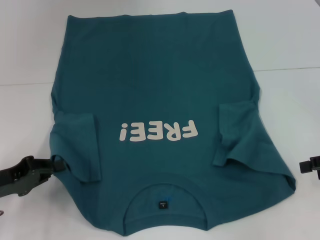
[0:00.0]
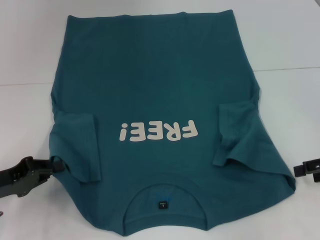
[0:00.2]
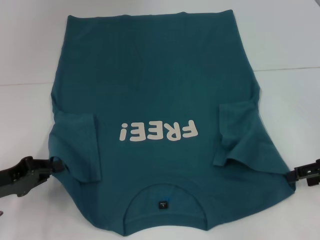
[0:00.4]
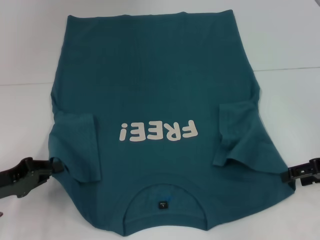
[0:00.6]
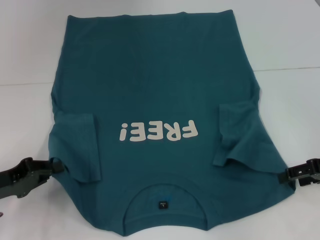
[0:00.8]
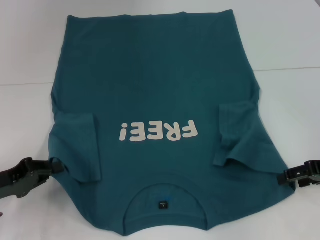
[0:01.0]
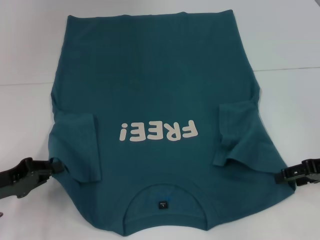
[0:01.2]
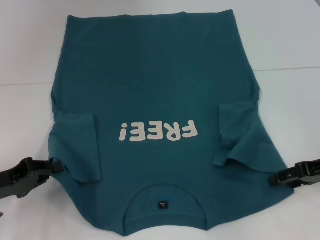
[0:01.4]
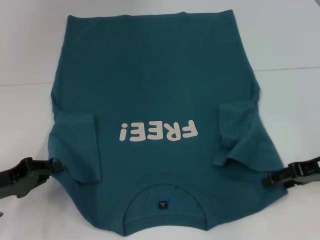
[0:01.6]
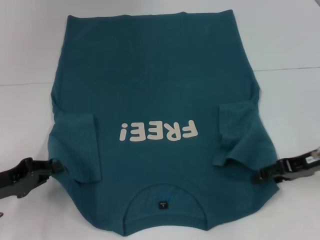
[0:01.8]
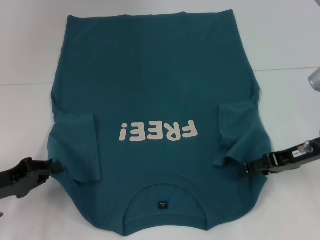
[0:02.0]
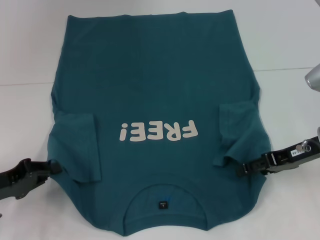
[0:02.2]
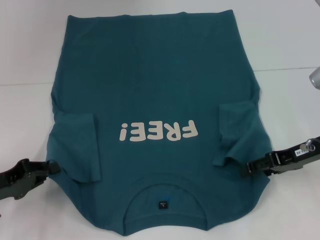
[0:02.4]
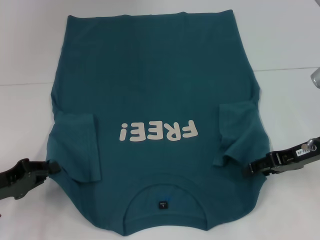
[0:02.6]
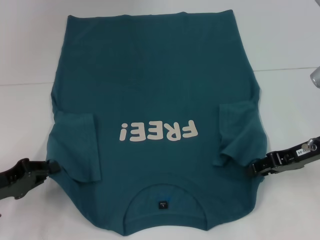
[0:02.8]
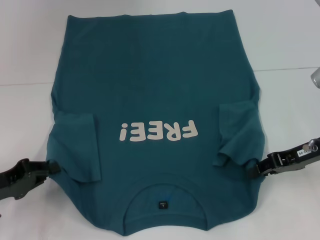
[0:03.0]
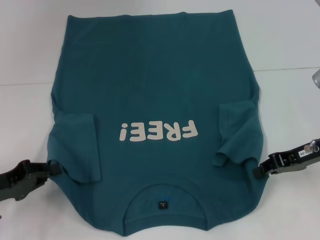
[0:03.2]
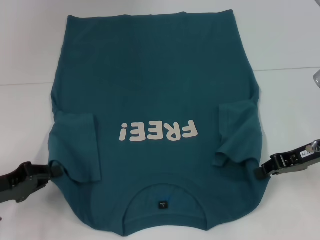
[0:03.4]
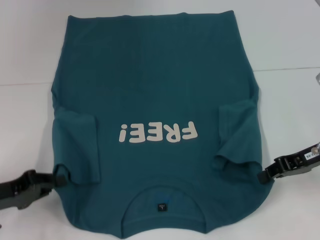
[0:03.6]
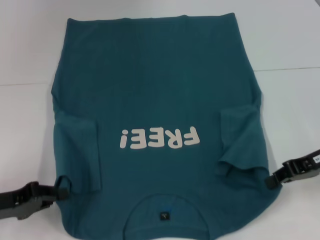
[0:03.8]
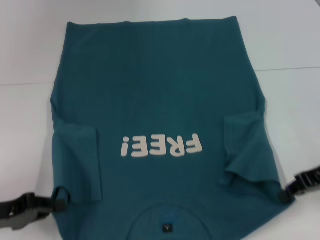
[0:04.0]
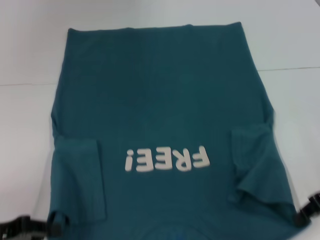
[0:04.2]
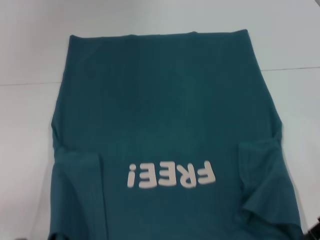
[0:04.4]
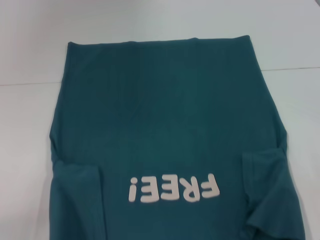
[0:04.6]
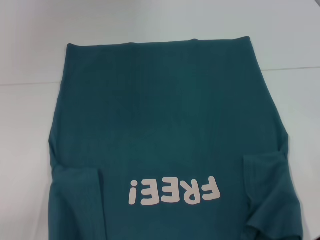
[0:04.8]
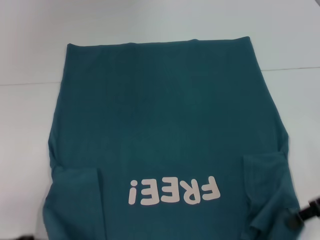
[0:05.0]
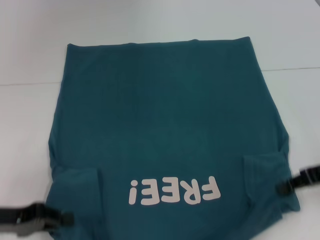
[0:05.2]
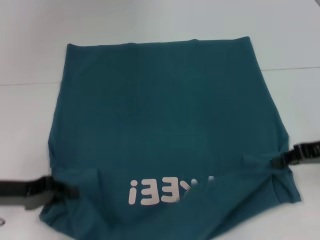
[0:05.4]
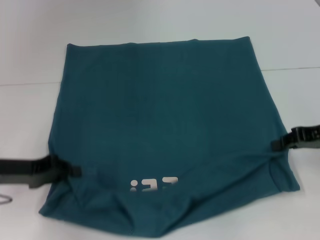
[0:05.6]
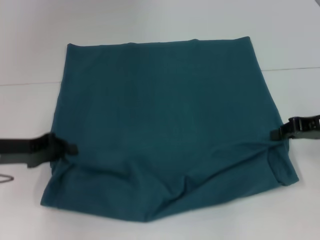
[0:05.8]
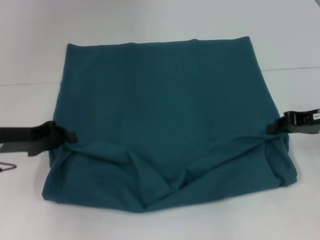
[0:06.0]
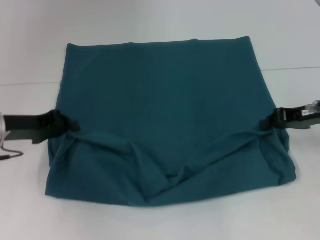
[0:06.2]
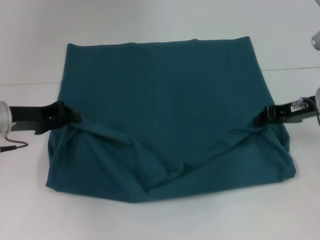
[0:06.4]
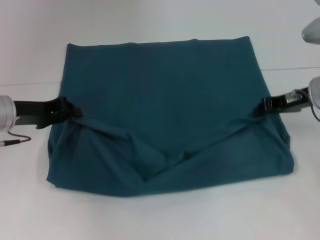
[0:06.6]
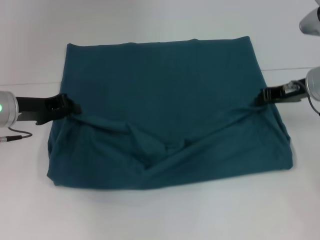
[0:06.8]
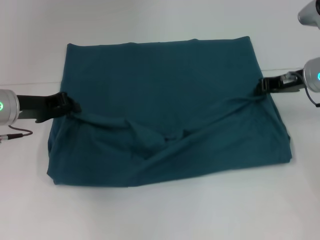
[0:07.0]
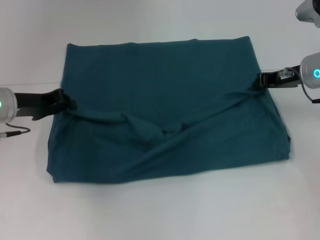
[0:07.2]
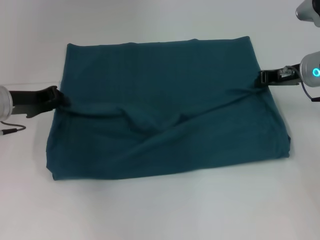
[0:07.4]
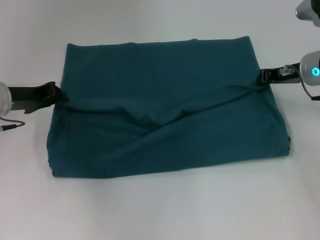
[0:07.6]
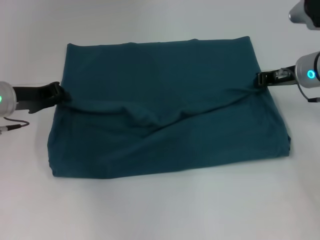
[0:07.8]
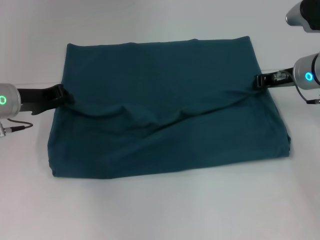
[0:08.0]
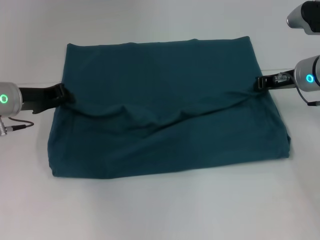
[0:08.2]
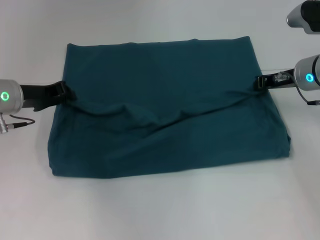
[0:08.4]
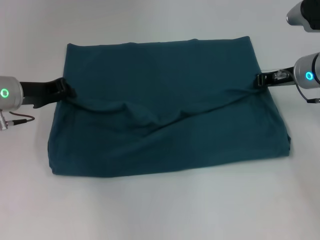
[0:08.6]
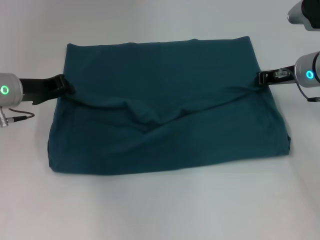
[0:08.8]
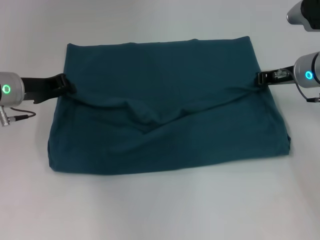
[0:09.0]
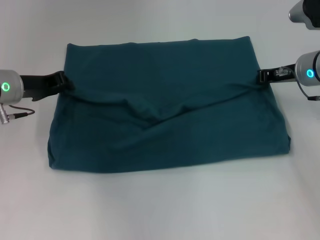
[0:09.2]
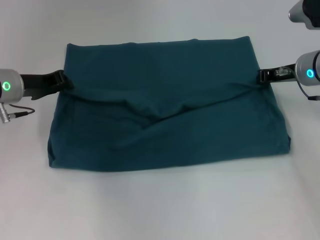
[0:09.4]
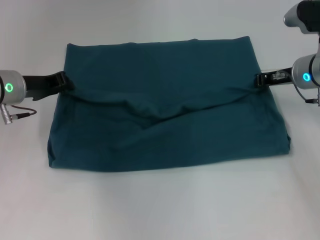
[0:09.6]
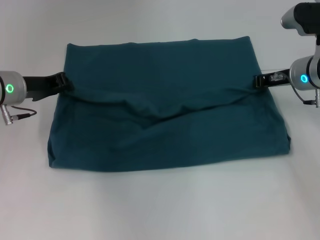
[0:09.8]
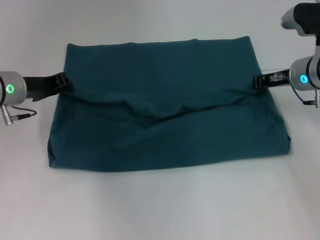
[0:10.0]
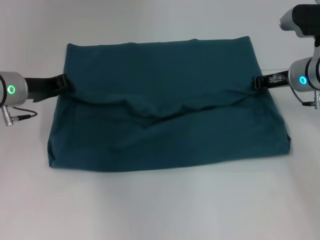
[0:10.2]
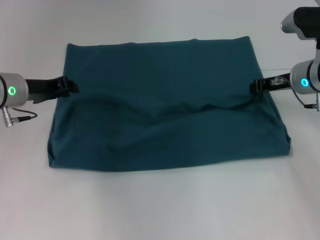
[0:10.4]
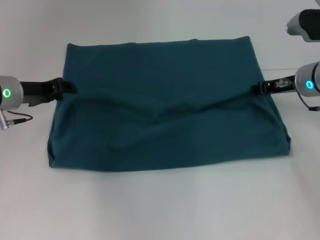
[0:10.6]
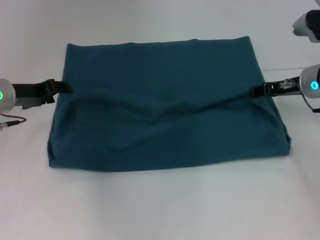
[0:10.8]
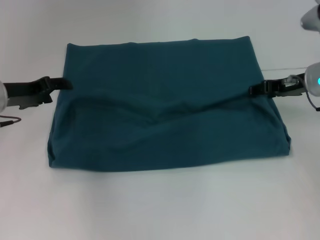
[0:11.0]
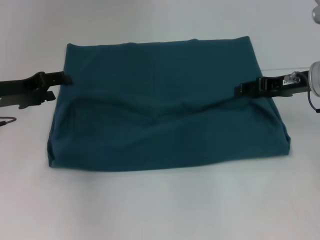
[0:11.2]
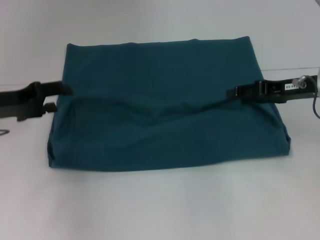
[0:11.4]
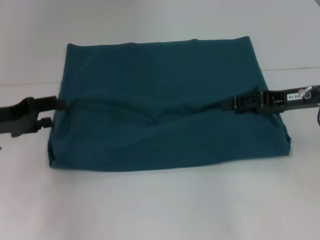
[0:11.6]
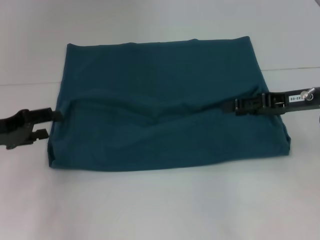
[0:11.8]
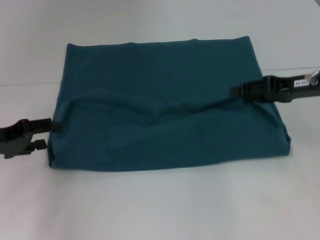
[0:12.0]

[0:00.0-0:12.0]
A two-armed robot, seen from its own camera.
Step, 0:00.0 to 0:03.8: Grab the bottom right corner with your right hand.
Step, 0:04.0 to 0:10.8: Fold the clothes to the left.
Step, 0:04.0 to 0:10.8: Fold the clothes to the right.
0:00.0 to 0:01.6: The right gripper travels to the left by about 5 cm.
0:01.6 to 0:03.0: The right gripper closes up.
0:03.0 to 0:04.4: The grippers both shift backward by roughly 5 cm. The right gripper closes up.
0:04.4 to 0:06.0: The left gripper shifts roughly 15 cm forward. Meanwhile the right gripper heads forward, covering about 10 cm.
0:06.0 to 0:07.6: The two grippers go about 5 cm forward.
0:07.6 to 0:09.0: The grippers make only small movements.
0:09.0 to 0:10.4: Neither gripper changes place.
0:10.4 to 0:12.0: The right gripper heads backward, covering some 5 cm, and opens. Meanwhile the left gripper travels backward and to the left by some 10 cm, and opens up.

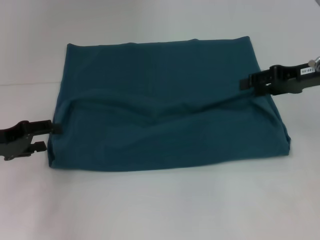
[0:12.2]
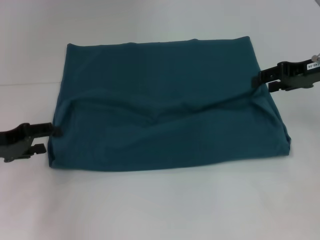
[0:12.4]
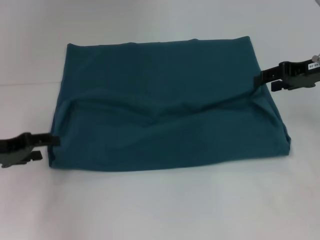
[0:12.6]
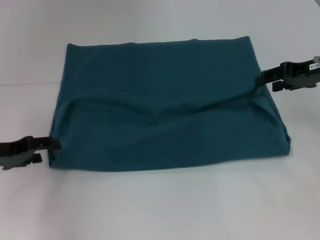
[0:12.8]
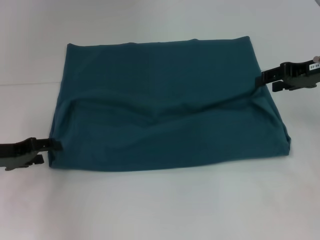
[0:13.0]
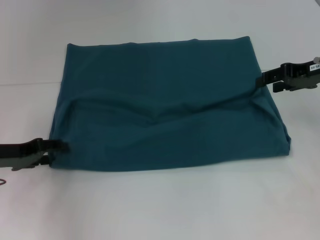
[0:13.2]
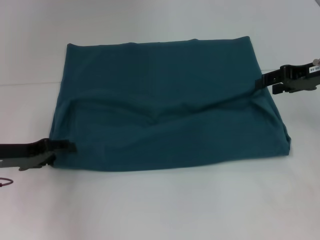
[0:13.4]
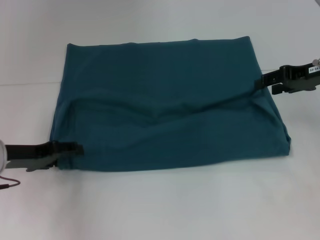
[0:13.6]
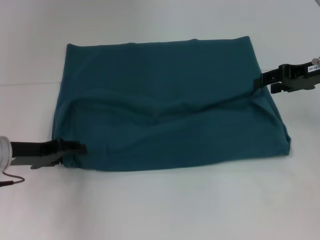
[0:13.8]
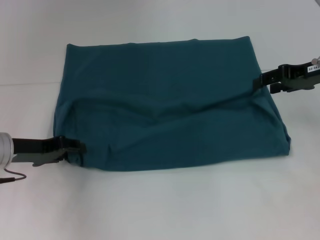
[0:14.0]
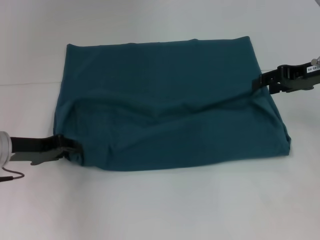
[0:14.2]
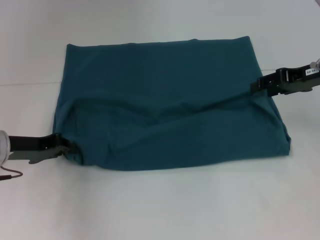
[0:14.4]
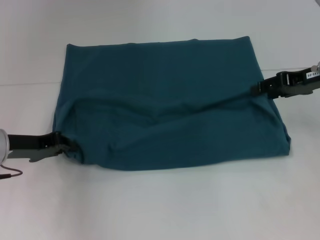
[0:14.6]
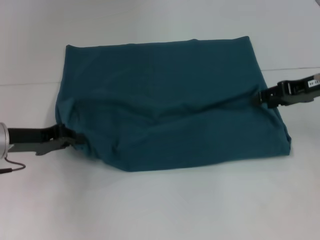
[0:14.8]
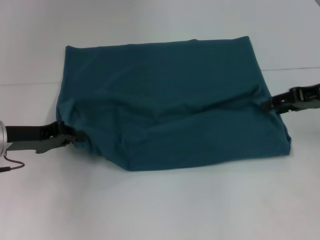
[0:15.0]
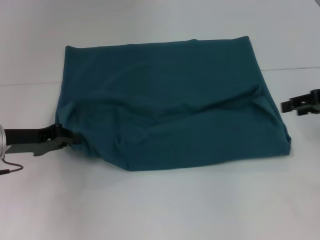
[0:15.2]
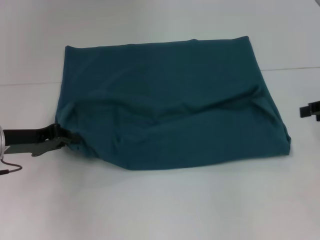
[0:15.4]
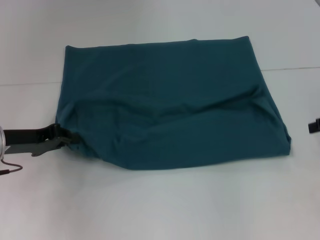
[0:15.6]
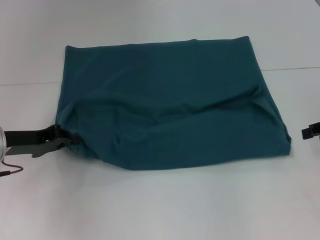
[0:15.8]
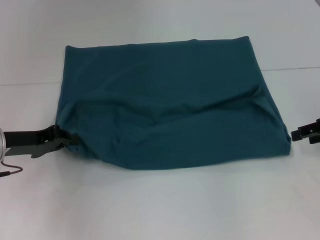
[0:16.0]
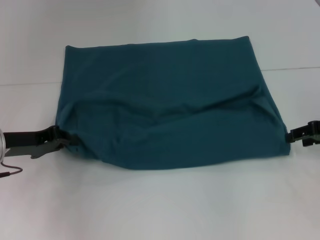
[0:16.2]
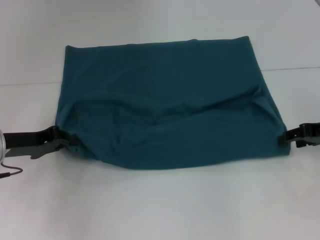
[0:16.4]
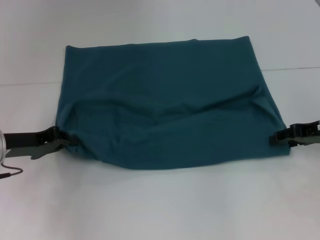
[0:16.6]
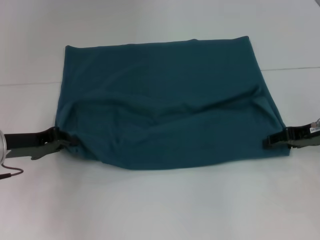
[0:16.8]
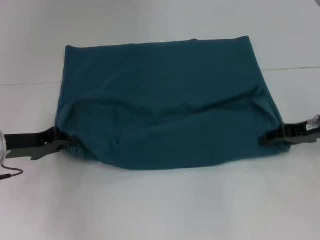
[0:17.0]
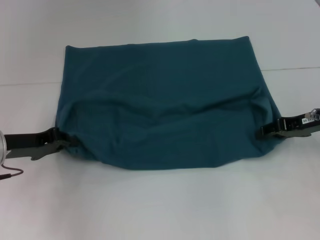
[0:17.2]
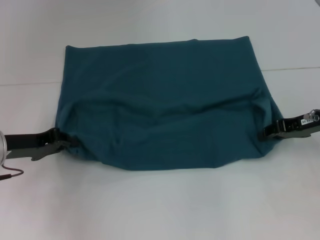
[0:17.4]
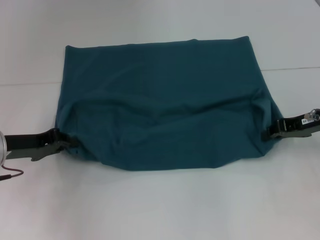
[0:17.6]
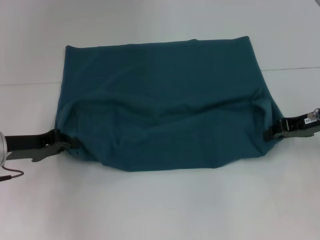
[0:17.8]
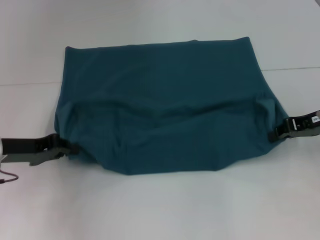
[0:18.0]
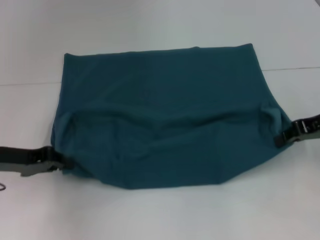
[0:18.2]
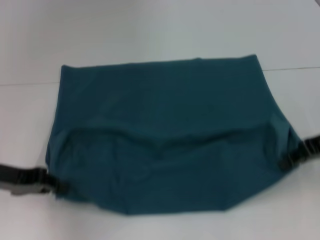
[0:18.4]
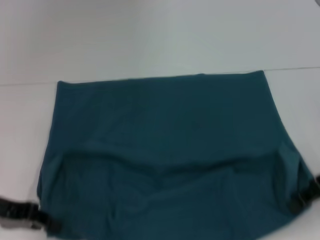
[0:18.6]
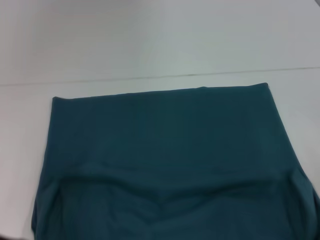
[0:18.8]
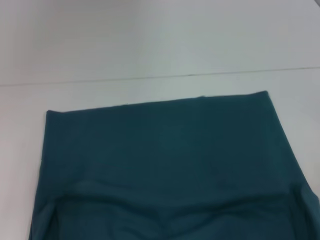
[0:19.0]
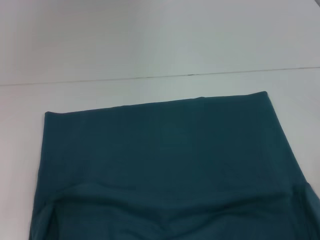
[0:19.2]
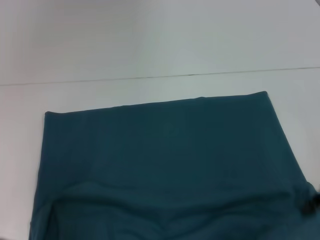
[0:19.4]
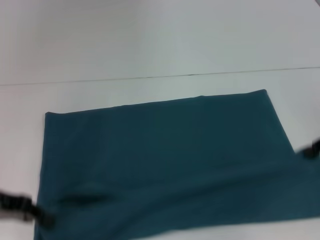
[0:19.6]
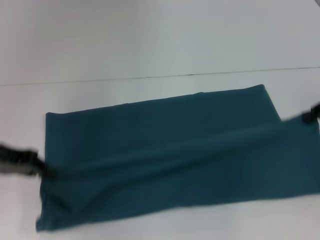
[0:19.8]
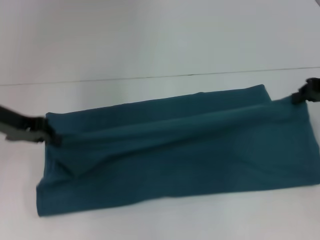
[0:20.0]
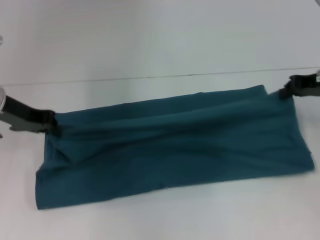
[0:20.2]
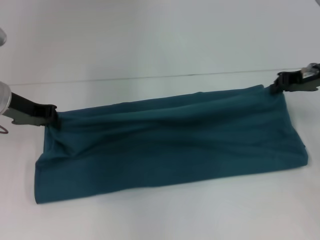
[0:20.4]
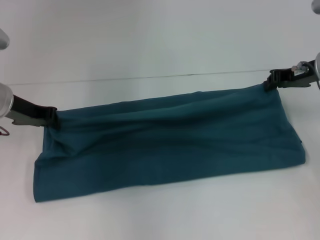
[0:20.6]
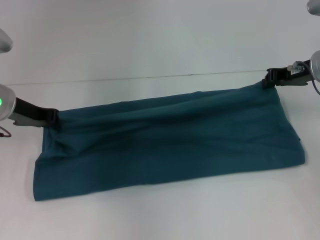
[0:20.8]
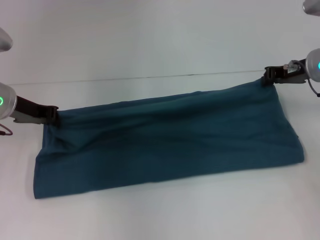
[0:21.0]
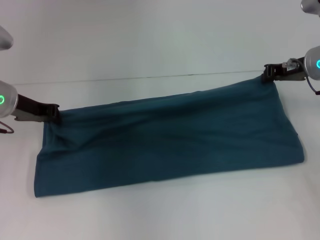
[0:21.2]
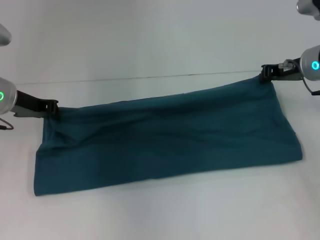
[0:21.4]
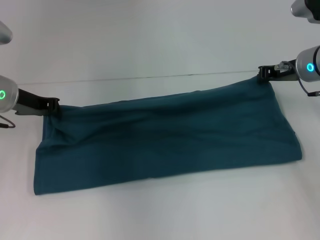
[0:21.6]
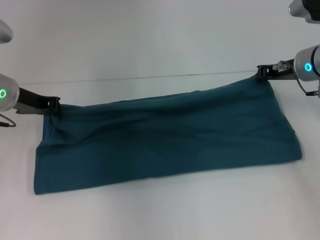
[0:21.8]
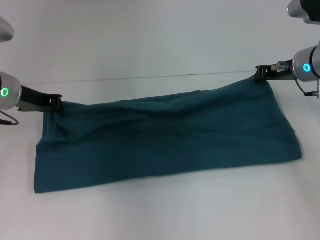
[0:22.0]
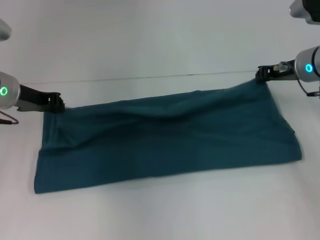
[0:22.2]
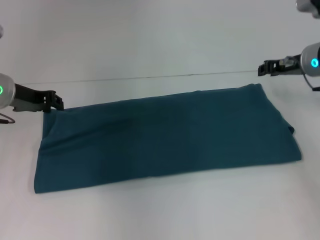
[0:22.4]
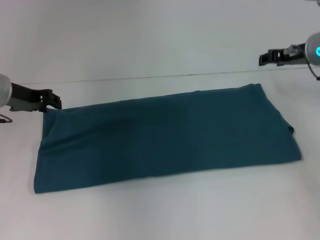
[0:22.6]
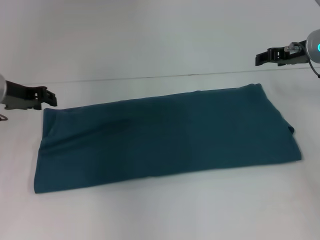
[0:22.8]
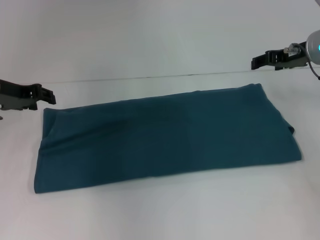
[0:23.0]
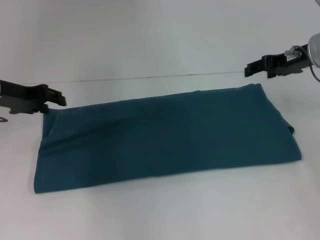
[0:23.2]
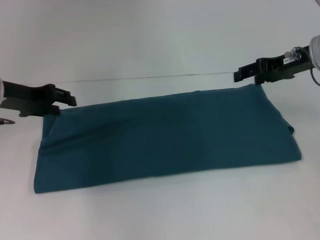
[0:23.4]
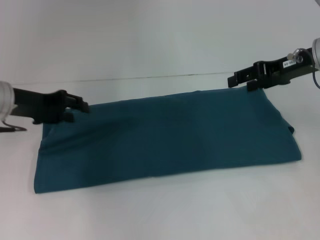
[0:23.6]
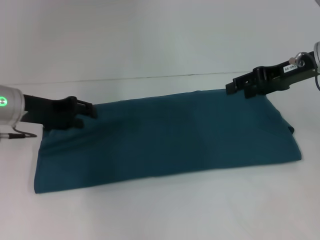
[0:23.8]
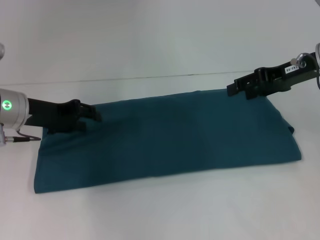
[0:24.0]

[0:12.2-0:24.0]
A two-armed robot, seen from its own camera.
Step, 0:12.2 to 0:19.2: Pull the clothes with your left hand.
Step, 0:12.2 to 0:19.2: Pull the clothes with your right hand.
Step, 0:19.4 to 0:22.6: Fold the clothes to the right.
0:12.2 to 0:13.6: There are only small adjustments of the grippers.
0:13.6 to 0:15.2: The left gripper closes its fingers; the right gripper moves about 5 cm.
0:15.2 to 0:16.6: The right gripper heads downward, covering about 5 cm.
0:16.6 to 0:18.2: The right gripper closes up.
0:18.2 to 0:19.6: The right gripper reaches roughly 10 cm backward, then returns.
0:19.6 to 0:21.0: The right gripper travels forward and to the left by roughly 15 cm; the left gripper moves forward and to the right, approximately 15 cm.
0:21.0 to 0:22.6: There are only small adjustments of the grippers.
0:22.6 to 0:24.0: The right gripper heads backward, covering roughly 5 cm, and opens its fingers.
